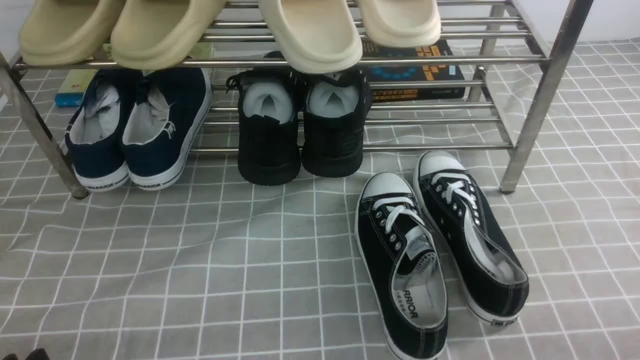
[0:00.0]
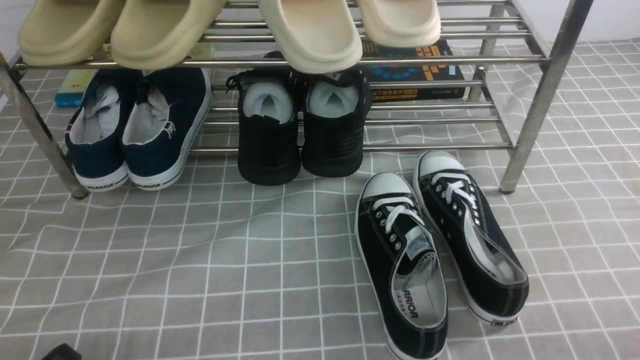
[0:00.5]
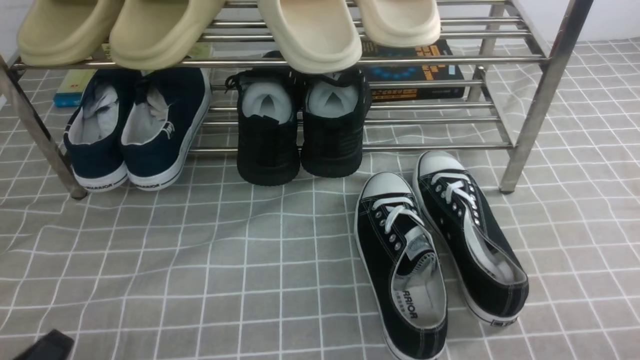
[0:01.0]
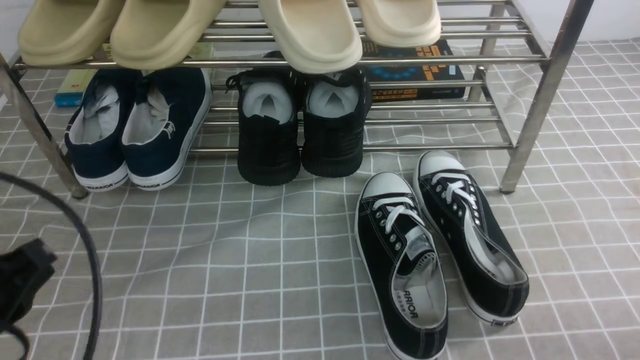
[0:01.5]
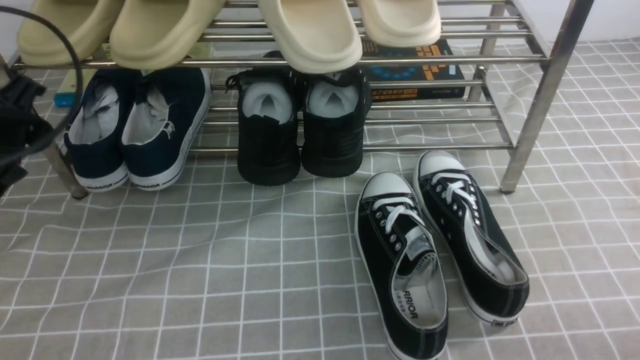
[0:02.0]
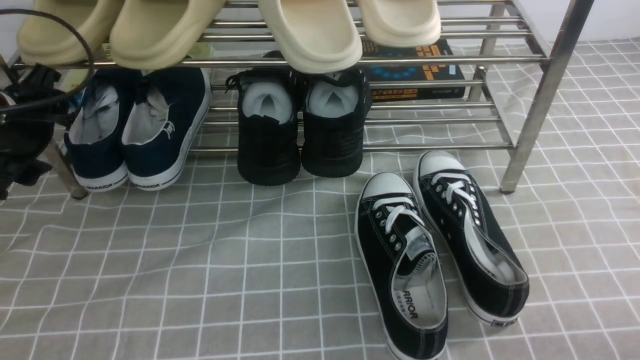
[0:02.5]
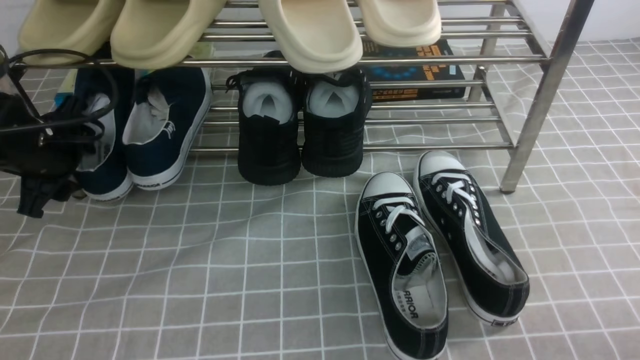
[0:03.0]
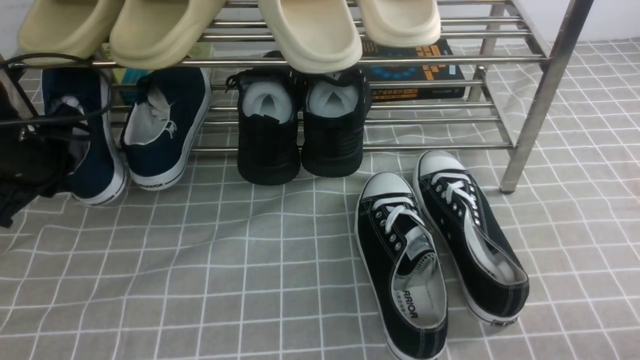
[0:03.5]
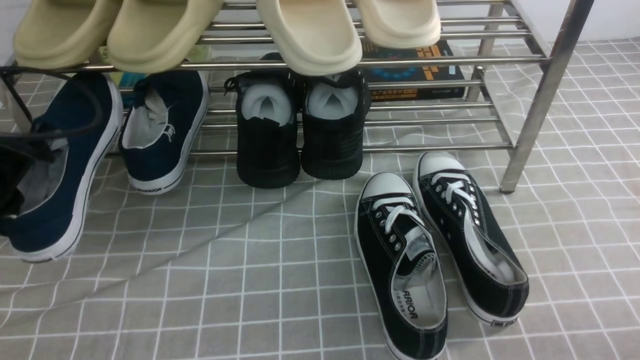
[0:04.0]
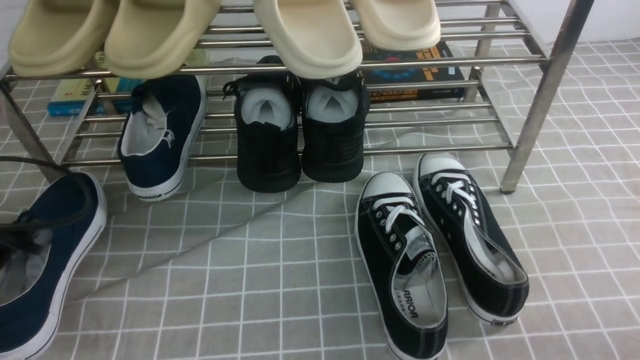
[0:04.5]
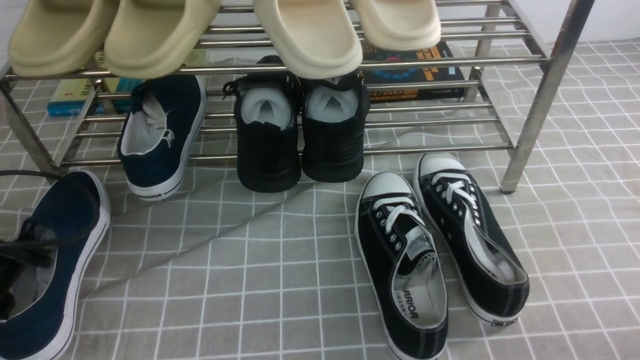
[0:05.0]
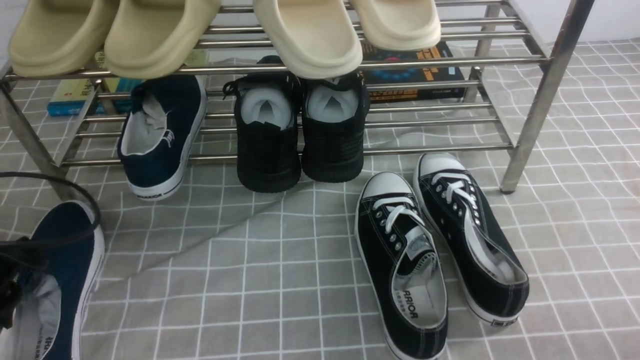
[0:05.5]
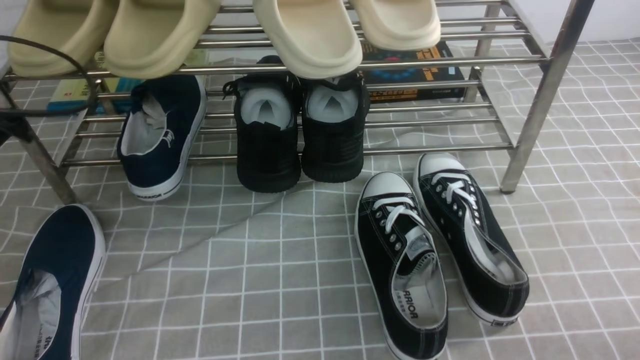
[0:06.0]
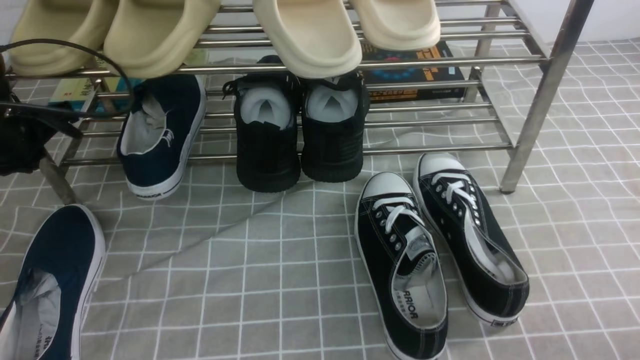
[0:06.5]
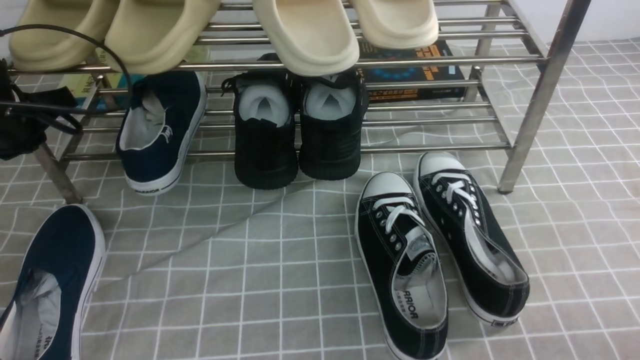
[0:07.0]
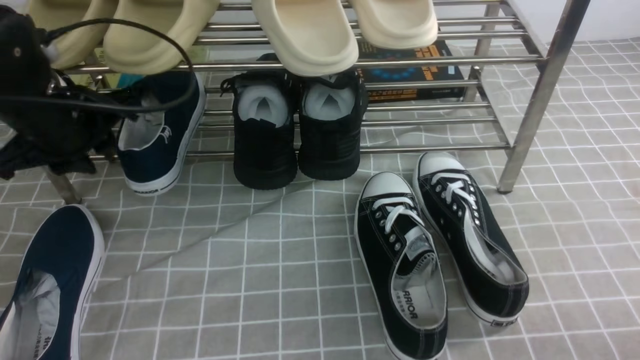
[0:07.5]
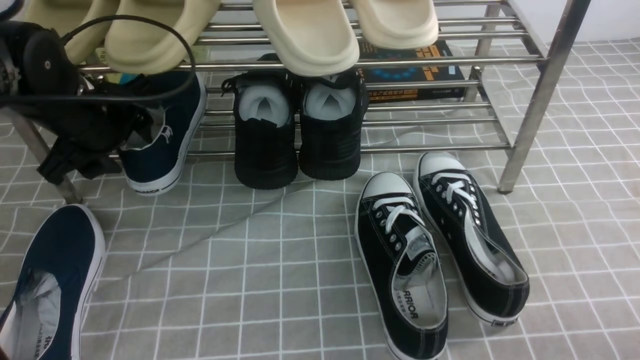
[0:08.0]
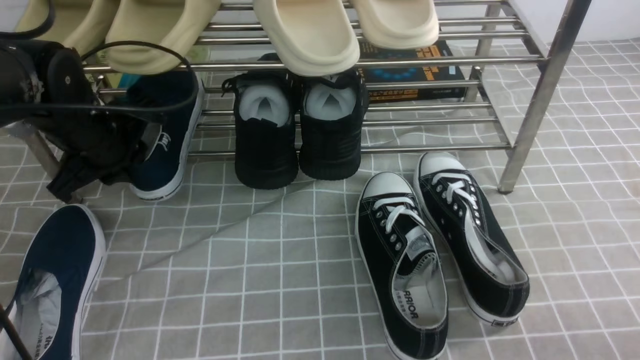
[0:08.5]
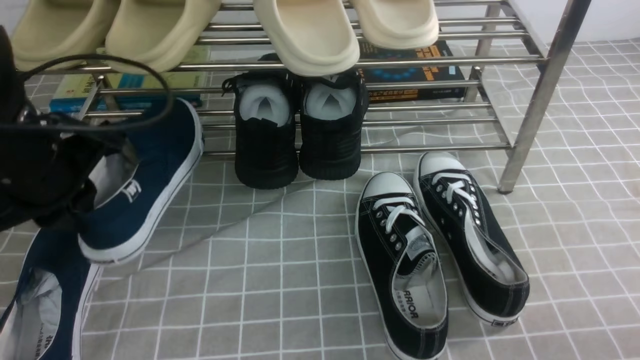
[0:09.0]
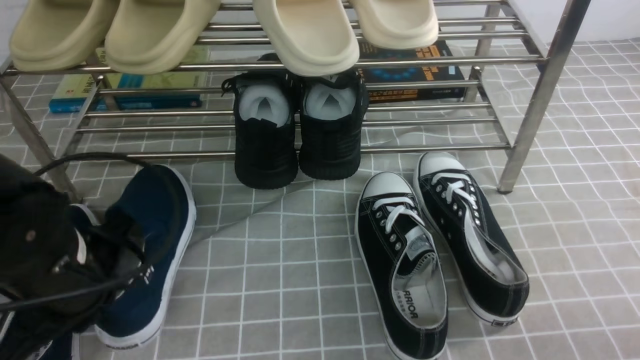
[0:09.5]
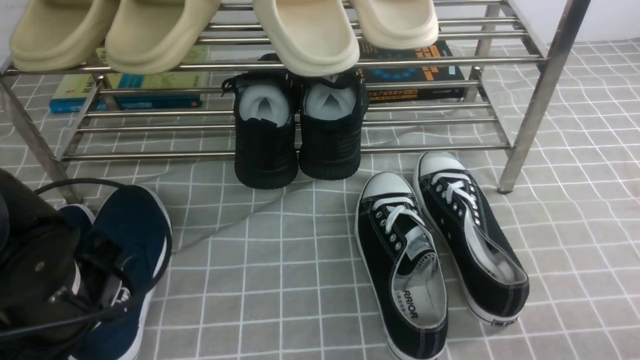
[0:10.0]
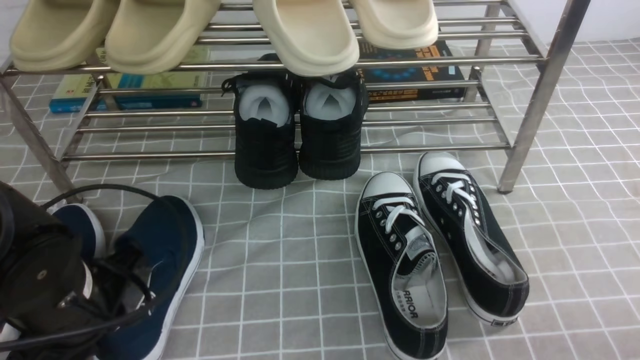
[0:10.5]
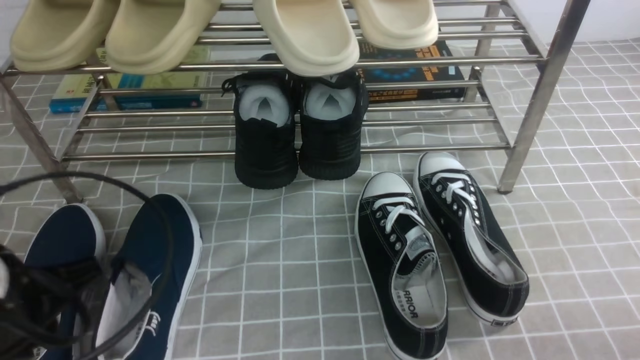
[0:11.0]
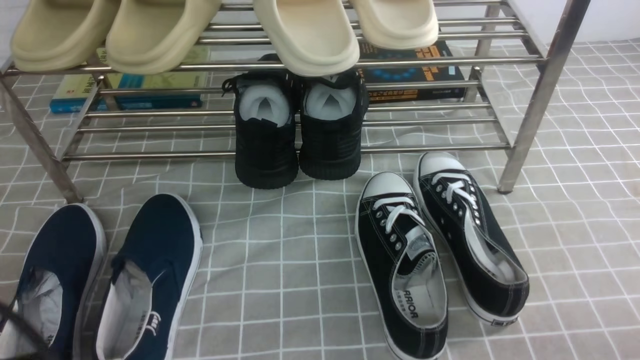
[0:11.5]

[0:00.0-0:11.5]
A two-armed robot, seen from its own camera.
Step, 0:00.0 to 0:03.0: use the left arm to clamp a shoe on the left side of the shoe rack.
Step, 0:03.5 to 0:05.5: Use your left arm to remove the clamped shoe from the shoe rack and put it down.
Step, 0:06.0 to 0:08.5: use the left arm to clamp a shoe on the left side of the shoe rack.
Step, 0:09.0 to 0:10.5: Use your left arm to remove the clamped shoe from the shoe rack and put it down.
0:00.0 to 0:02.0: The left gripper shifts roughly 25 cm forward and upward, and closes, then reopens.
0:02.0 to 0:04.0: The left gripper reaches about 10 cm forward, then returns, and closes its fingers.
0:04.0 to 0:06.0: The left gripper moves about 5 cm backward and comes back, and opens, then closes once more.
0:06.0 to 0:07.5: The left gripper shifts roughly 5 cm to the right.
0:07.5 to 0:09.5: The left gripper shifts some 15 cm backward, and closes up.
0:09.5 to 0:11.5: The left gripper is displaced backward by roughly 15 cm.

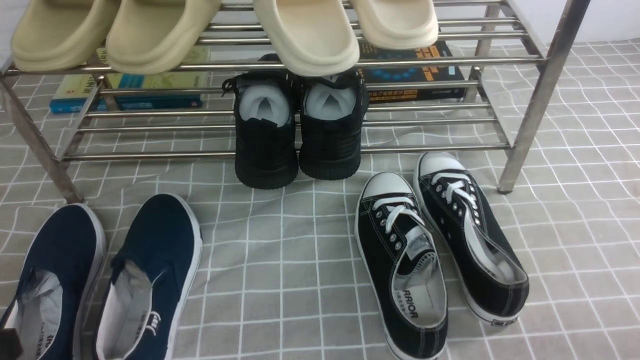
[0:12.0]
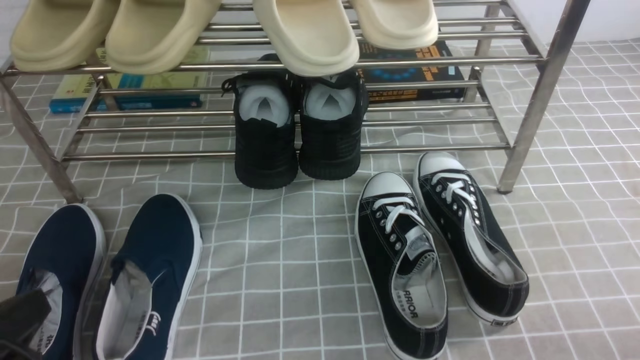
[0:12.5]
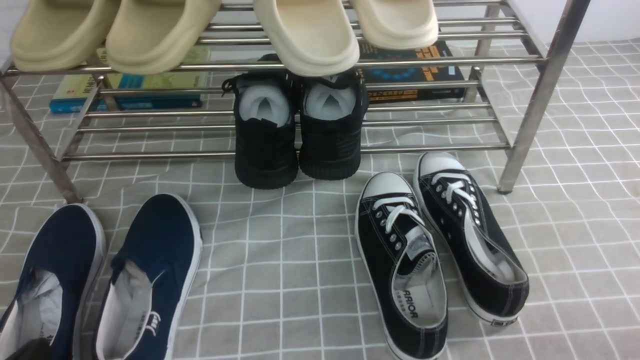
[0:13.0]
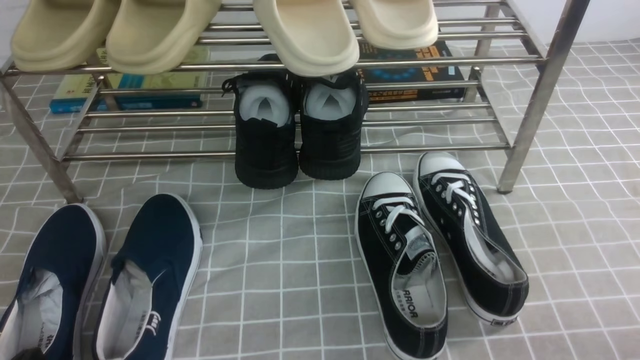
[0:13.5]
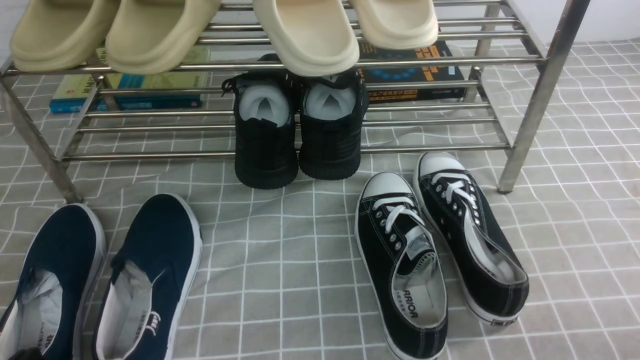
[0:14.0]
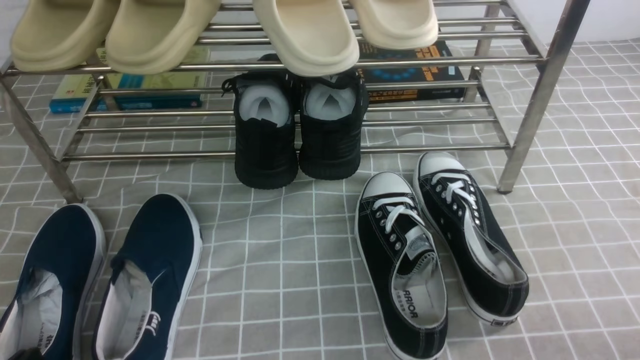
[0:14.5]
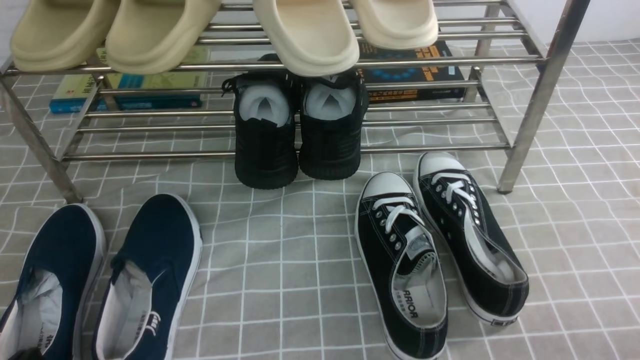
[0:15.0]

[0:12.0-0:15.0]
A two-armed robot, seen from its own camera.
0:13.5 to 0:15.0: Neither gripper changes place.

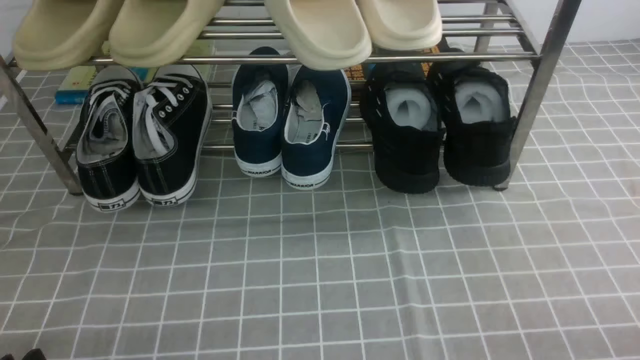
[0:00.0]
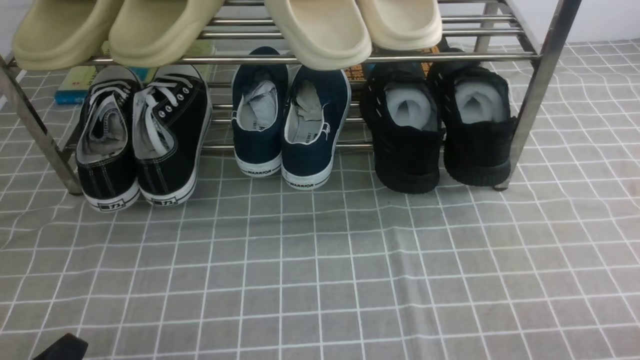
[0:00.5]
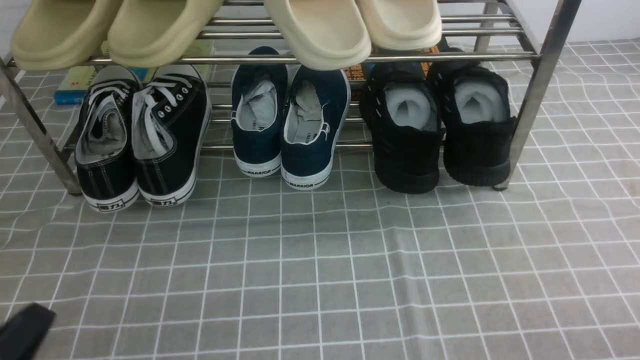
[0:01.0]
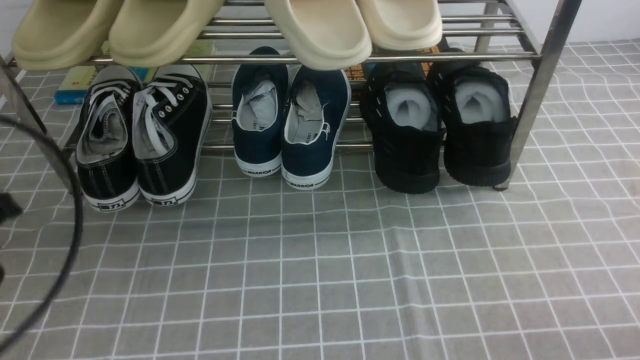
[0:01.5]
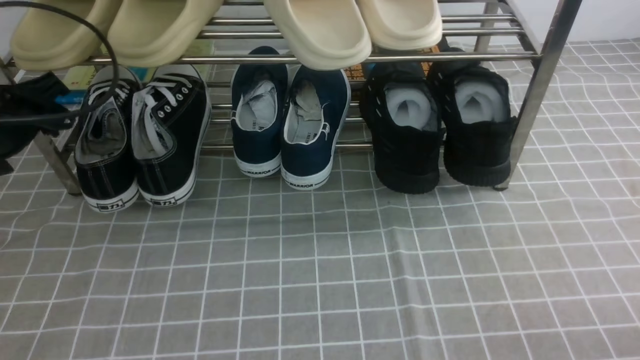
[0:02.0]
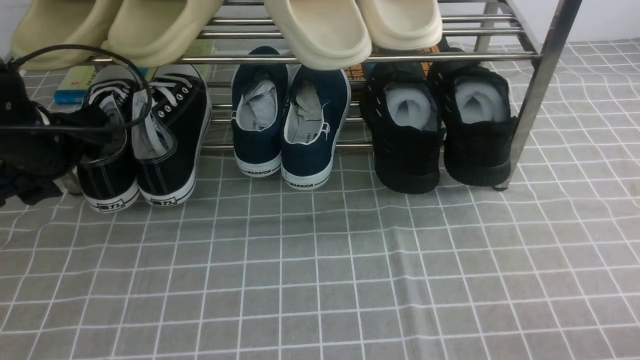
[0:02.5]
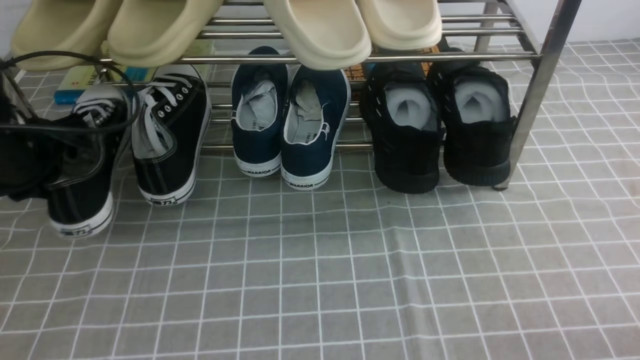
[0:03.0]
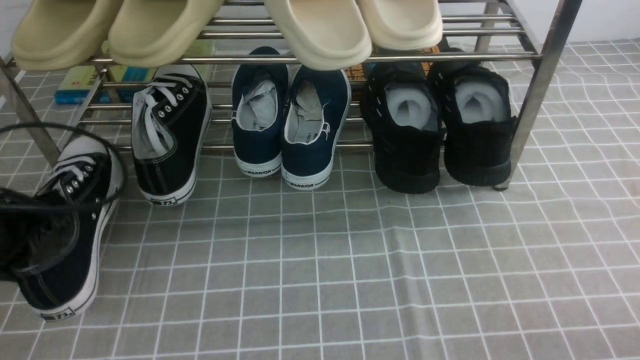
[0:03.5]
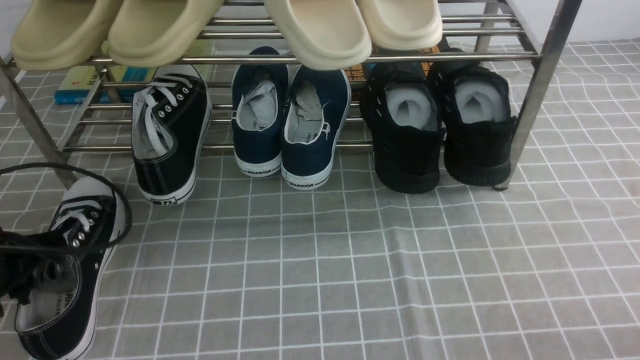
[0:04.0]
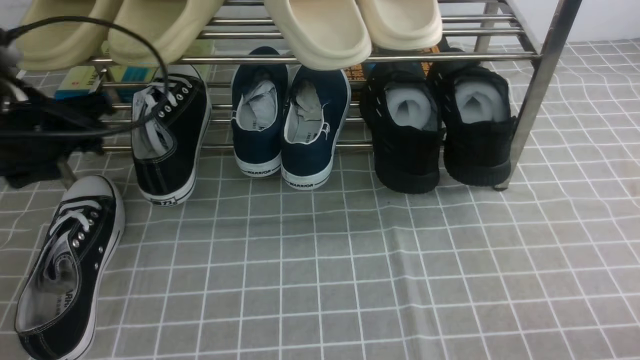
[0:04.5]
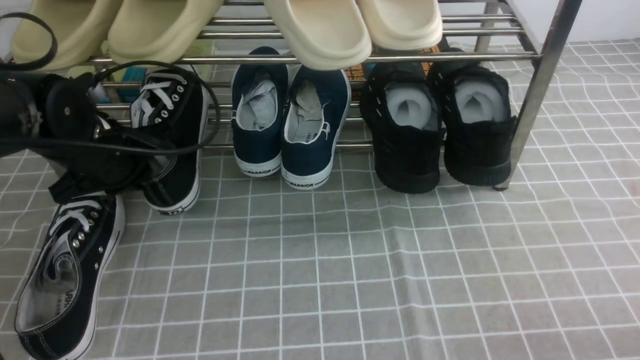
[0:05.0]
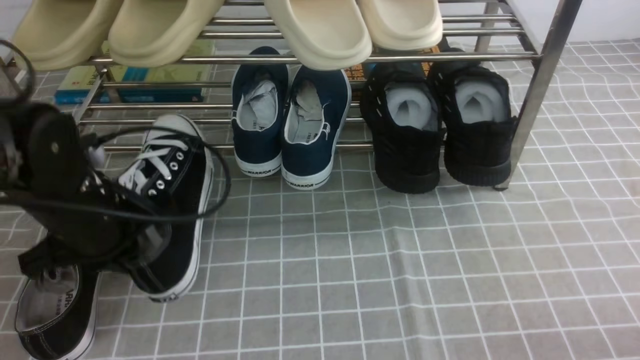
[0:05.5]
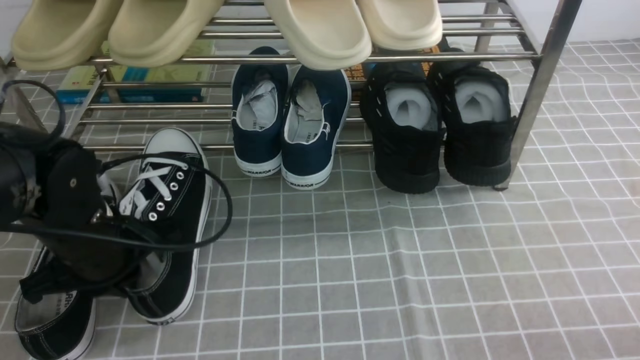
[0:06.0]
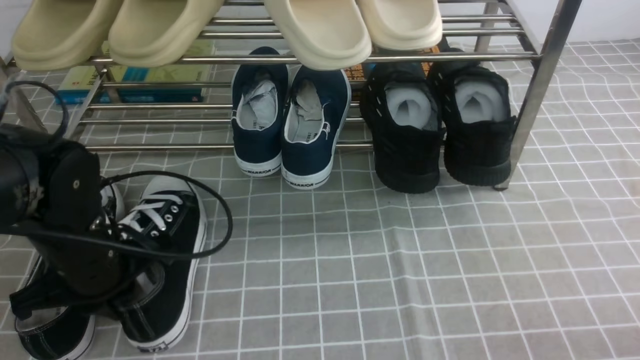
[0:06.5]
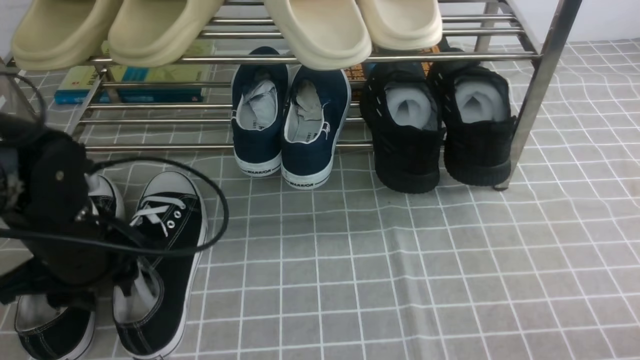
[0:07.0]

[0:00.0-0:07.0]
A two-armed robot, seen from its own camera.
Step, 0:00.0 to 0:02.5: use the left arm to clamp a shoe on the left side of the shoe rack.
Step, 0:03.0 to 0:04.0: Use your left arm to remove the clamped shoe from the shoe rack and put it down.
Step, 0:04.5 to 0:05.0: use the left arm to clamp a shoe on the left side of the shoe rack.
0:00.0 to 0:02.0: The left gripper goes roughly 30 cm forward and upward, and opens its fingers.
0:02.0 to 0:03.5: The left gripper goes some 10 cm backward and downward, and closes.
0:03.5 to 0:05.0: The left gripper is displaced forward and to the right by some 10 cm, and opens, then closes again.
0:05.0 to 0:07.0: The left gripper moves backward, approximately 10 cm.
